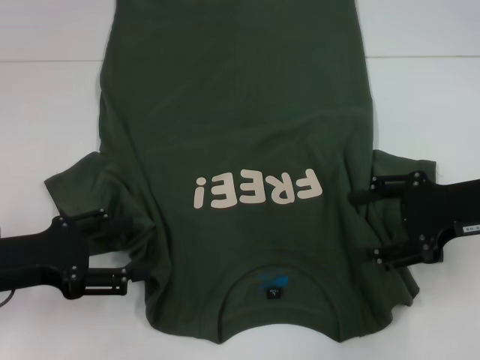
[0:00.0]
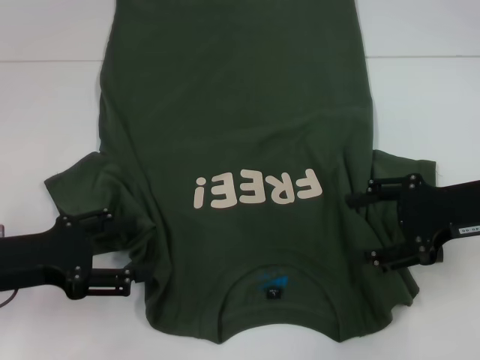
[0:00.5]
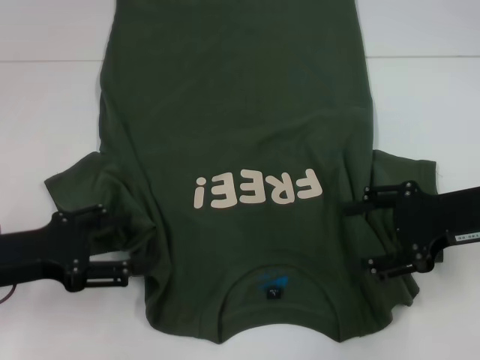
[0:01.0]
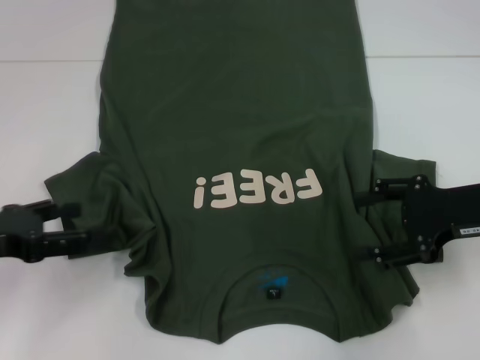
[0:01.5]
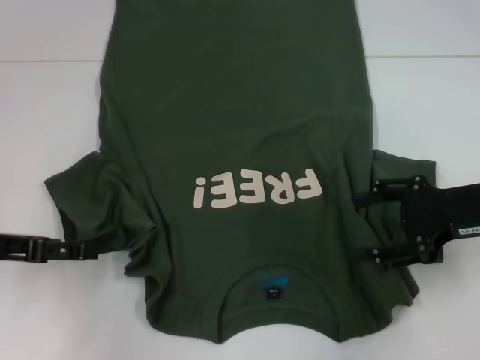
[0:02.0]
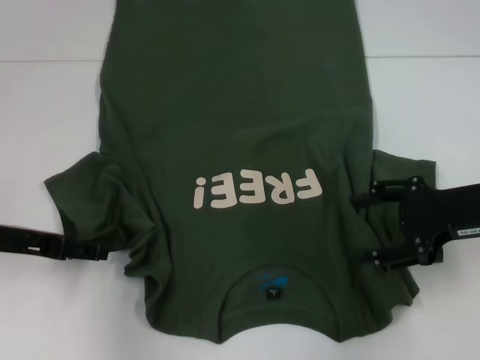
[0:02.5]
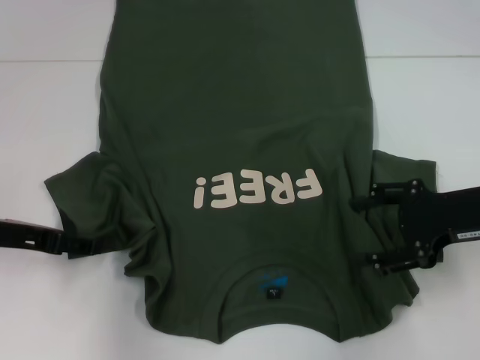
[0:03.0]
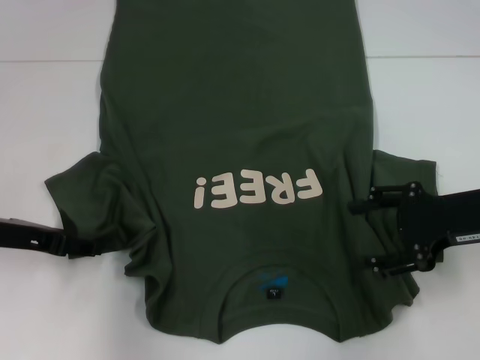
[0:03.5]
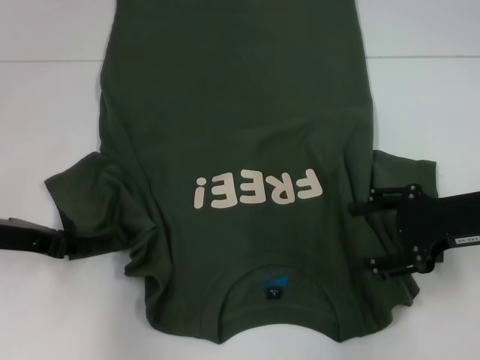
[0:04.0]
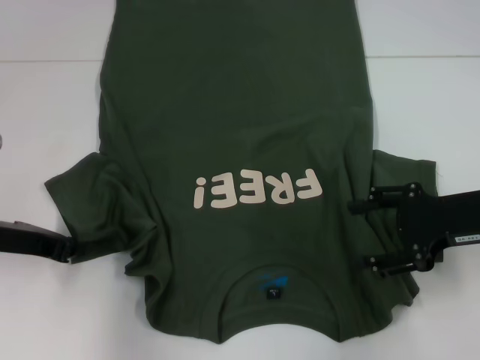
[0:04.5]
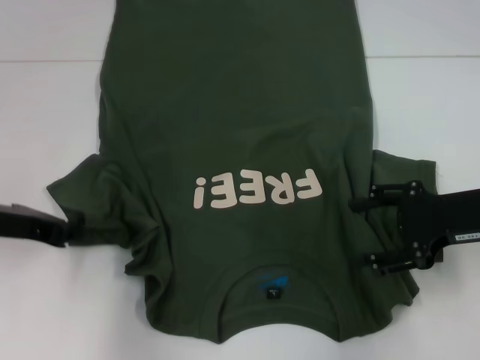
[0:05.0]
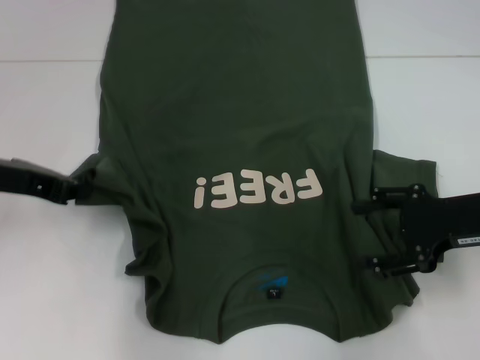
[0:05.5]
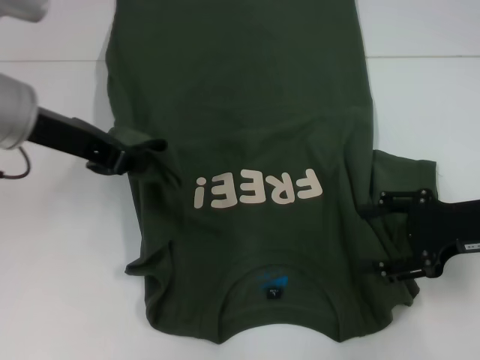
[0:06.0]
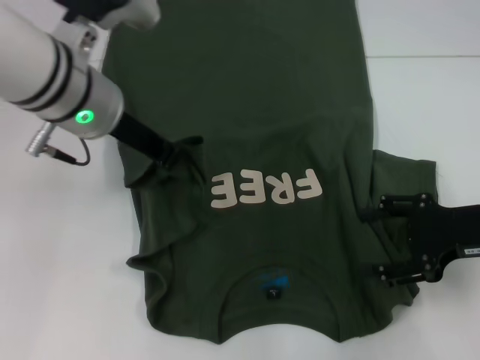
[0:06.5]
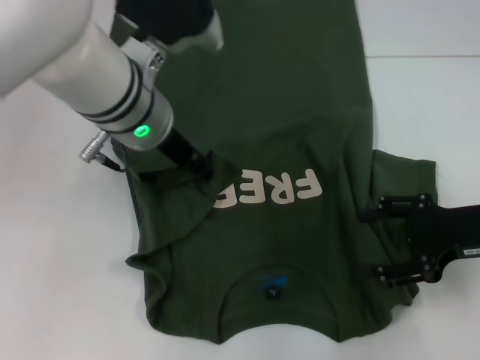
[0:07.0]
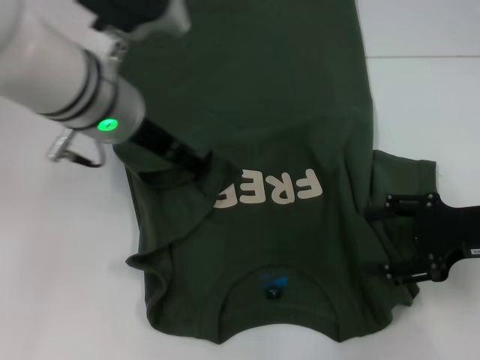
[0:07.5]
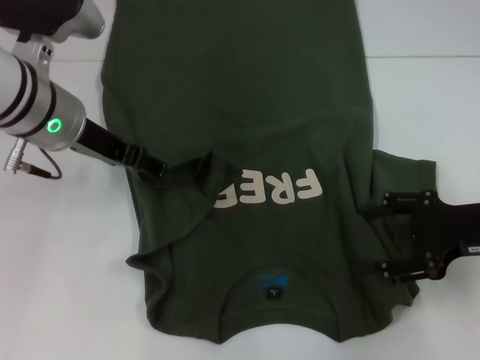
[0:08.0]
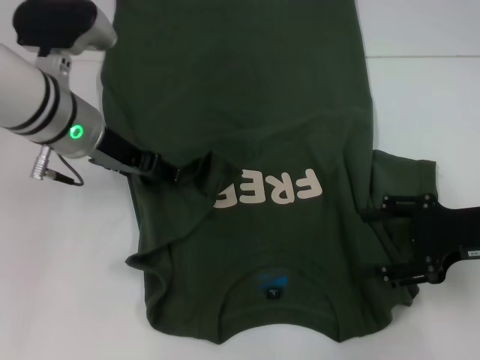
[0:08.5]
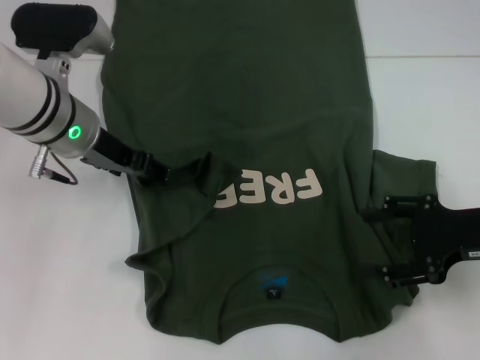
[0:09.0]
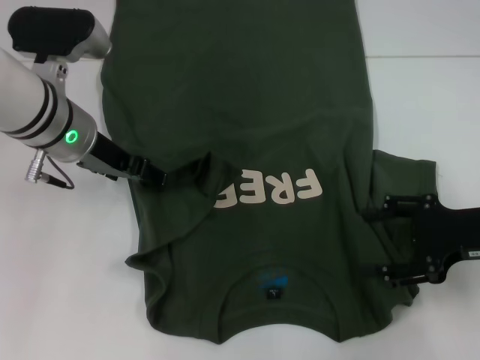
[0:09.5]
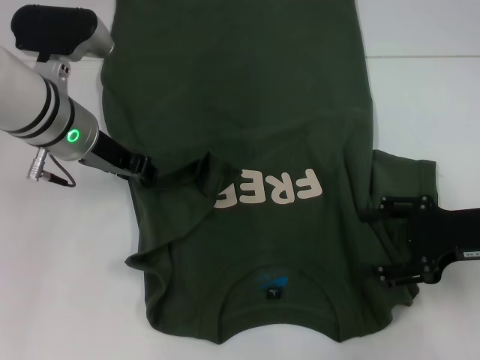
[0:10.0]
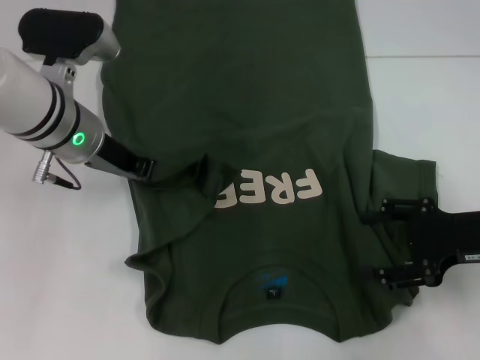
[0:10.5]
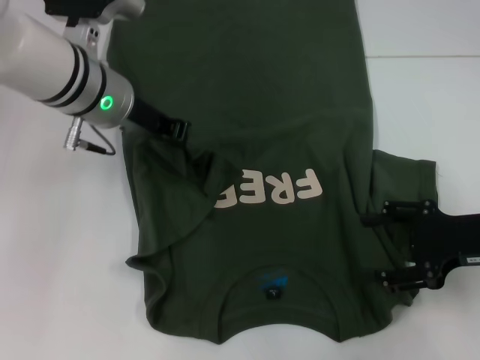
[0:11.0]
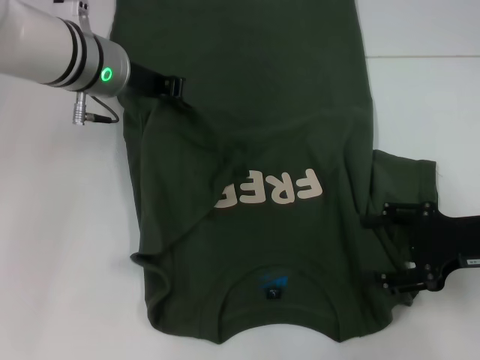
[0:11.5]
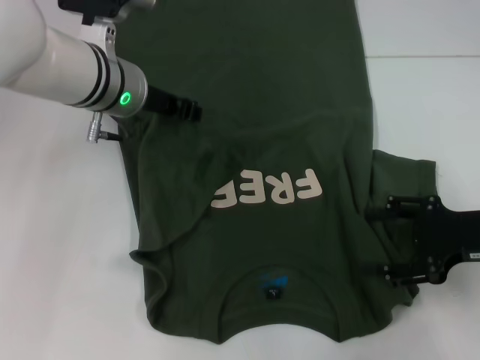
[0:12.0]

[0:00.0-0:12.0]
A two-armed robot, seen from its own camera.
0:02.0 to 0:04.0: The left gripper closes.
0:04.0 to 0:06.0: The left gripper moves upward and to the right, about 15 cm, and closes its fingers.
0:06.0 to 0:08.0: The left gripper travels to the right and back again, some 10 cm each way, and opens.
0:08.0 to 0:10.0: There are only small adjustments of the grippers.
0:10.0 to 0:12.0: The left gripper shifts by some 5 cm, and closes up.

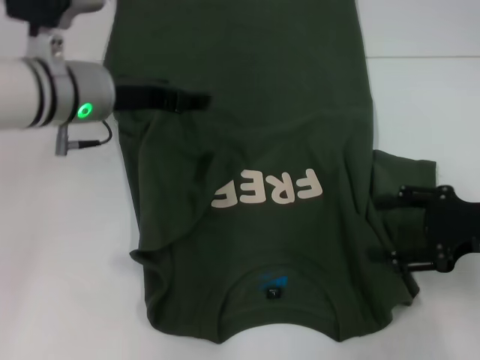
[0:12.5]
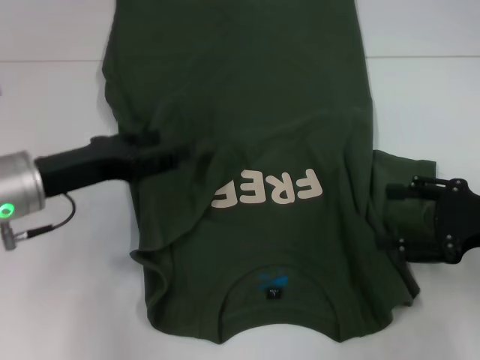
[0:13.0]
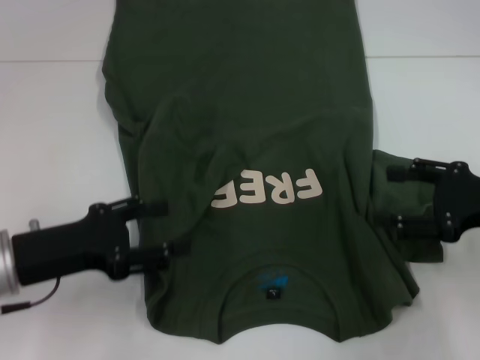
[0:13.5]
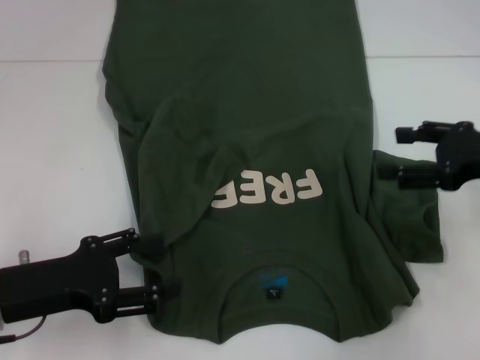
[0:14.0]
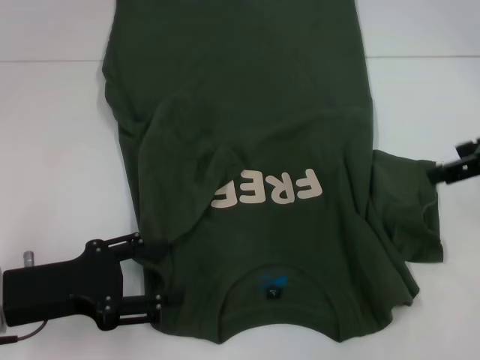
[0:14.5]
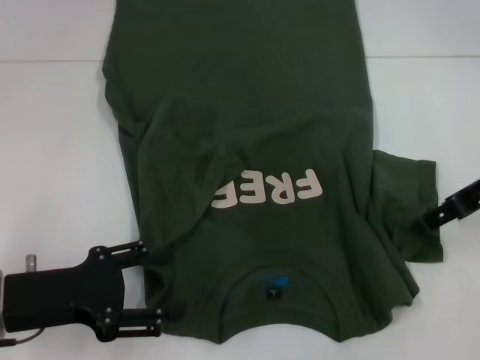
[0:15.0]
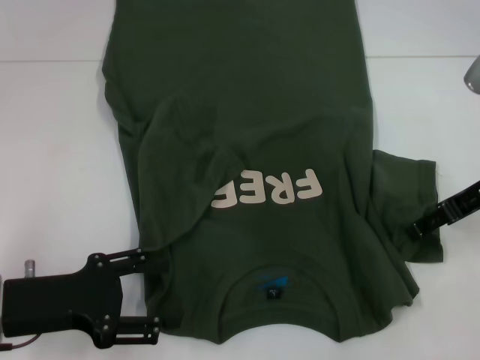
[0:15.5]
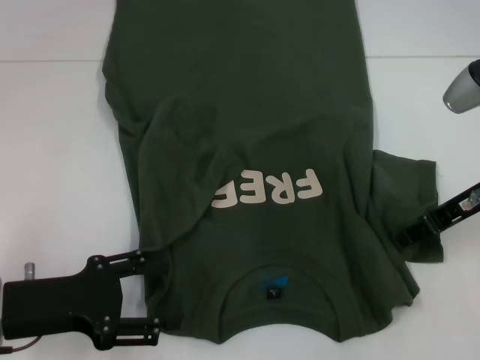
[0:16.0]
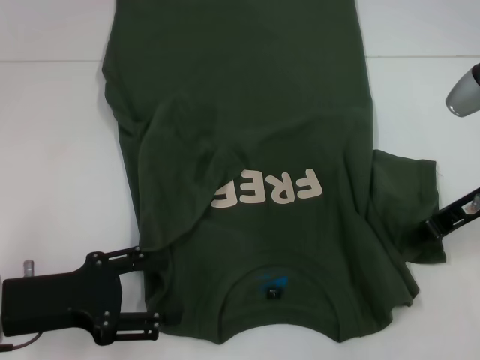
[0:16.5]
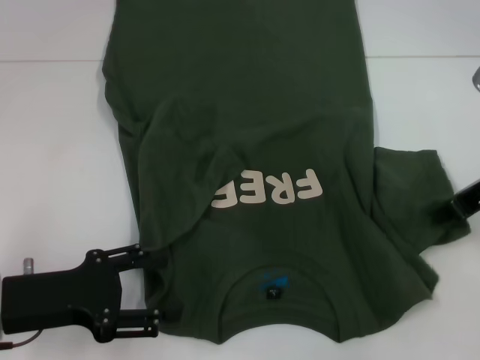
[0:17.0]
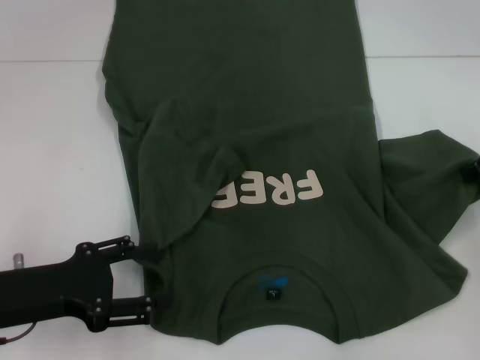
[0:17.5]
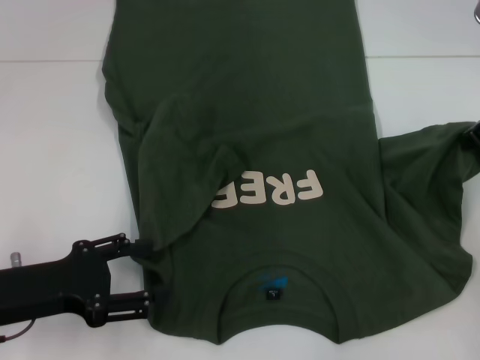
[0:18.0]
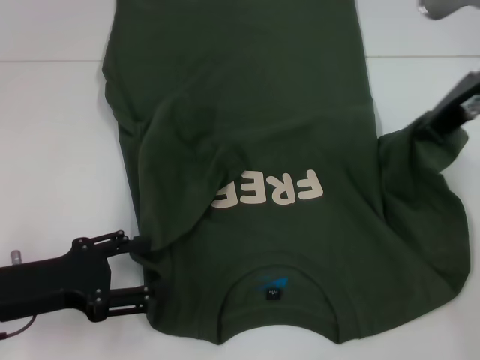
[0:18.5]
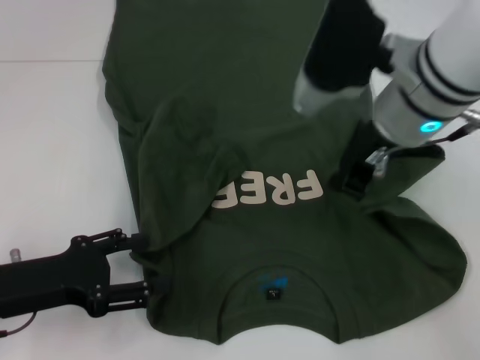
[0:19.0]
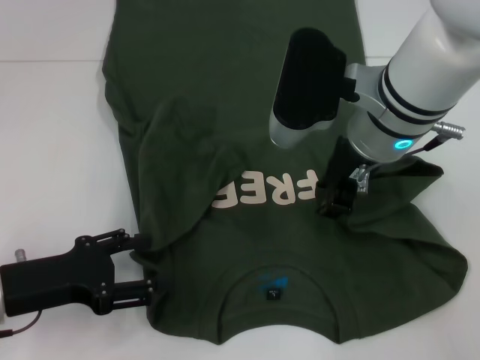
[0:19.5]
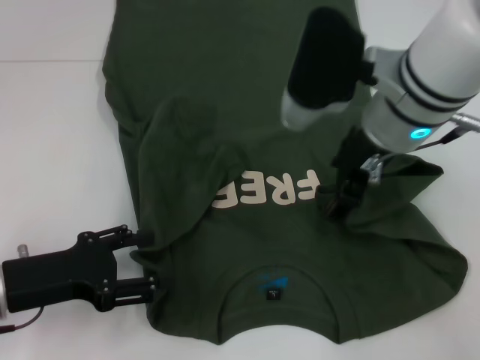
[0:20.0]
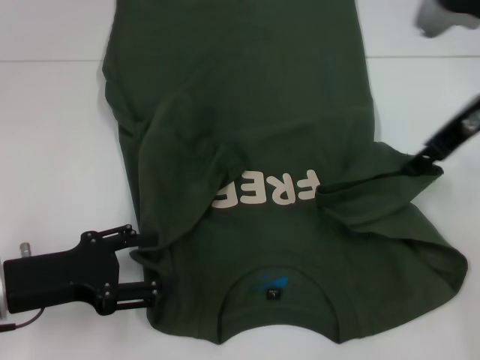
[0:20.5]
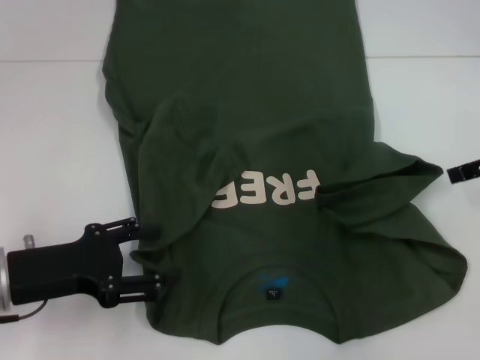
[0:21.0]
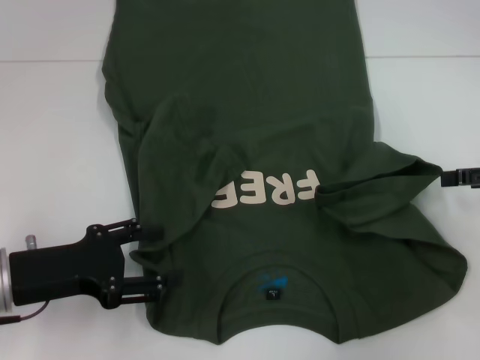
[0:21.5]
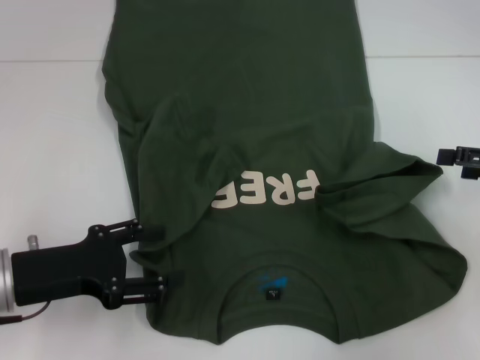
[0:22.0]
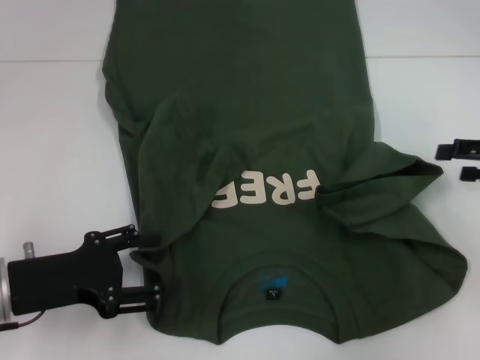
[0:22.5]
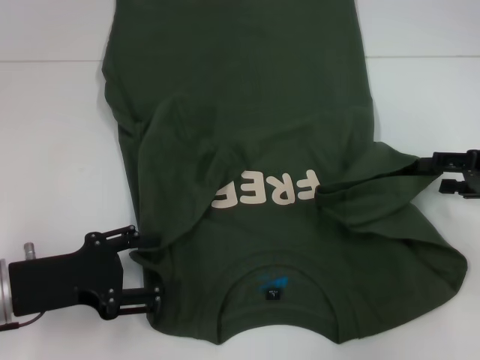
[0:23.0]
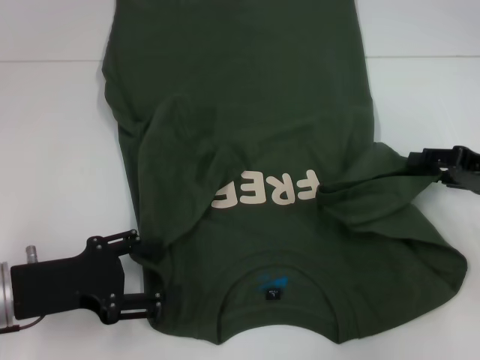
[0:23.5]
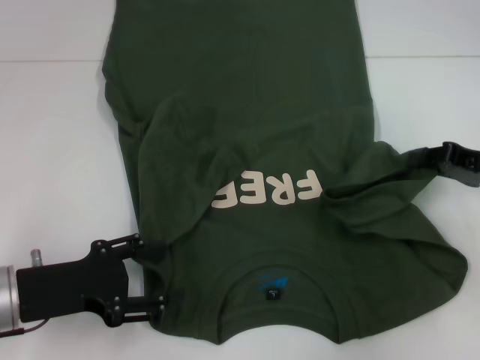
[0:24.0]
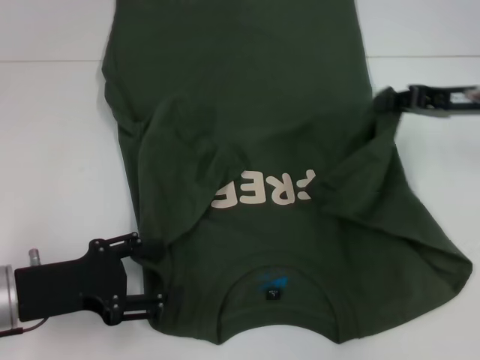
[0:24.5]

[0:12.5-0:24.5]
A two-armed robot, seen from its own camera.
0:12.5 to 0:14.5: The left gripper travels backward, to the left and downward by roughly 20 cm, while the right gripper shifts some 10 cm upward and forward.
0:14.5 to 0:16.5: The right gripper heads downward, covering some 5 cm, and closes.
0:16.5 to 0:18.5: The right gripper heads upward and to the left, covering about 10 cm.
0:18.5 to 0:20.5: The right gripper travels to the left and back again, approximately 10 cm each way, and opens.
0:20.5 to 0:22.5: The right gripper moves to the right and downward, approximately 15 cm.
0:22.5 to 0:24.5: The right gripper heads to the left and forward, covering roughly 10 cm, and closes.

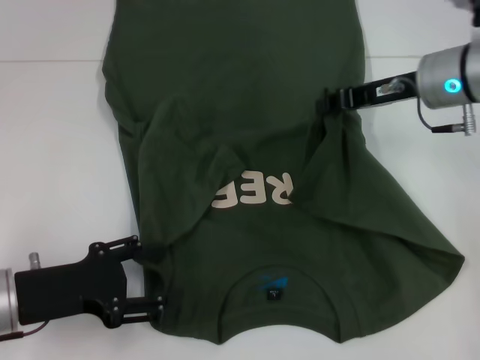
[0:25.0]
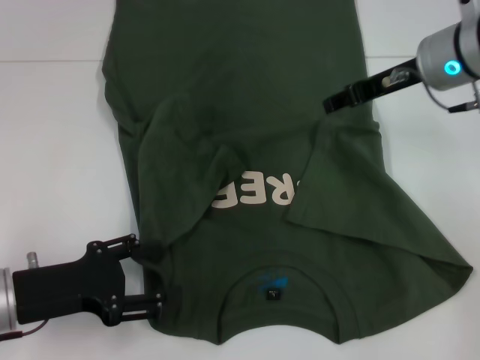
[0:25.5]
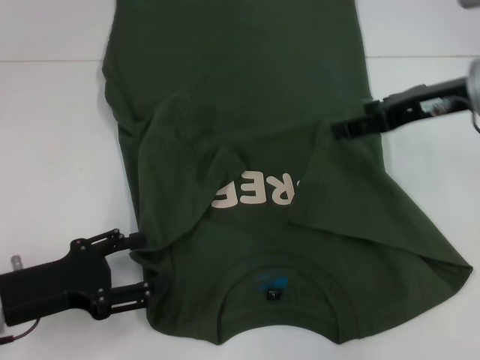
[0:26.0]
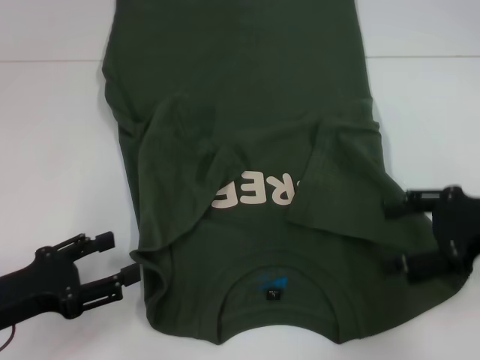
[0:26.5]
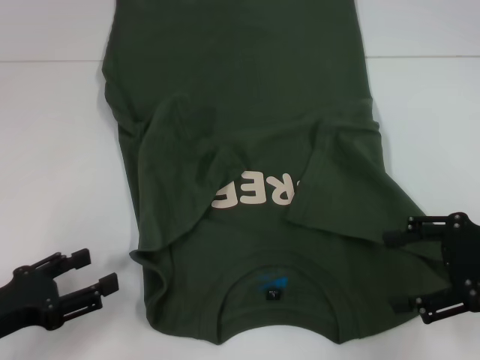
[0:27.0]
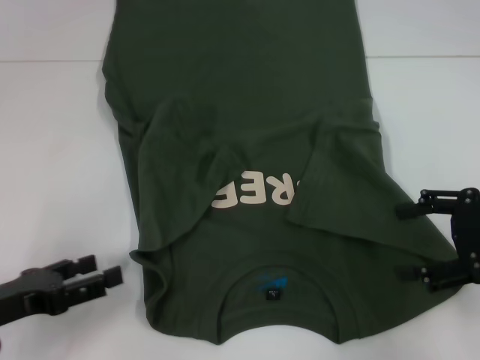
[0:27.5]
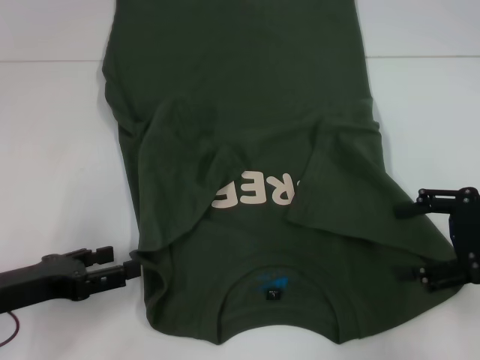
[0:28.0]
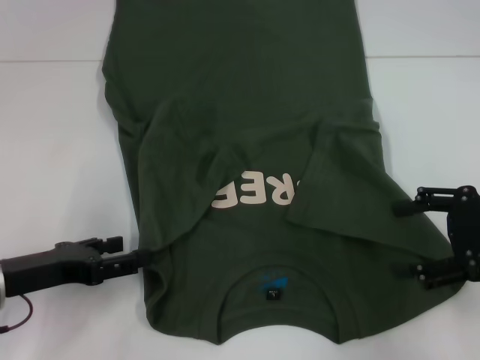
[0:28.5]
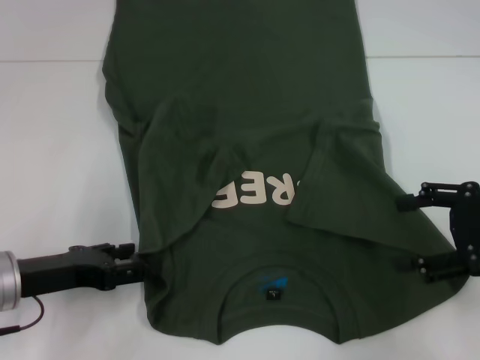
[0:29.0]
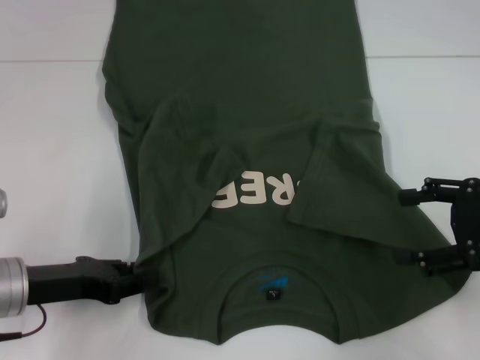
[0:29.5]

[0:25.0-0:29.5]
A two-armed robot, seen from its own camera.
0:25.0 to 0:27.0: The left gripper shifts by some 5 cm, while the right gripper heads backward and to the right, covering some 20 cm, and opens.
0:27.0 to 0:29.5: The left gripper goes roughly 5 cm forward.
